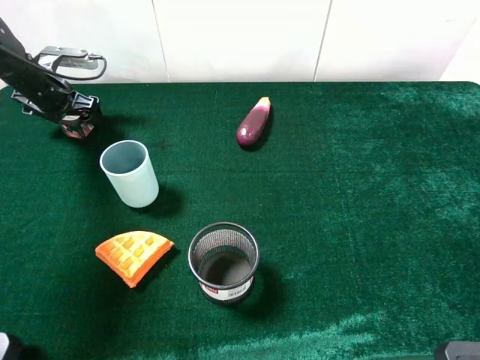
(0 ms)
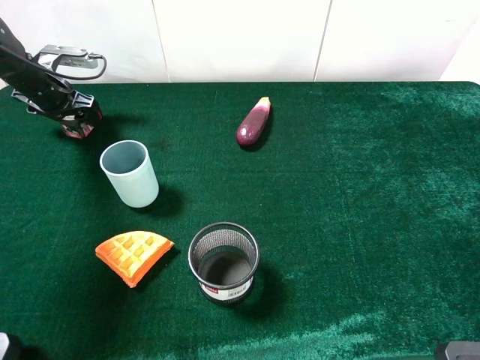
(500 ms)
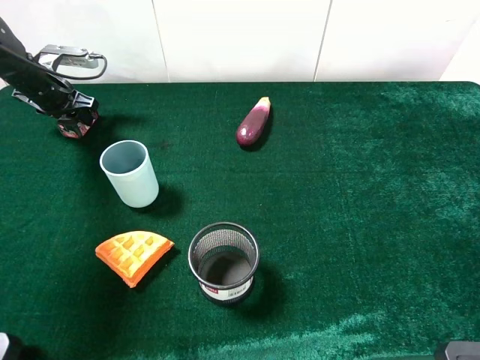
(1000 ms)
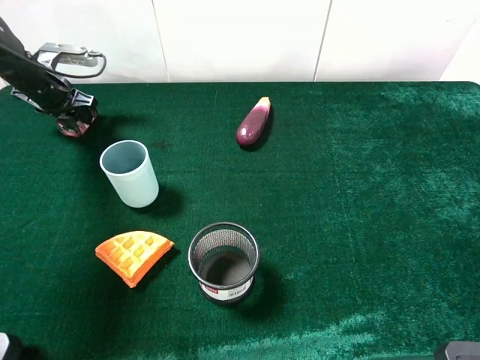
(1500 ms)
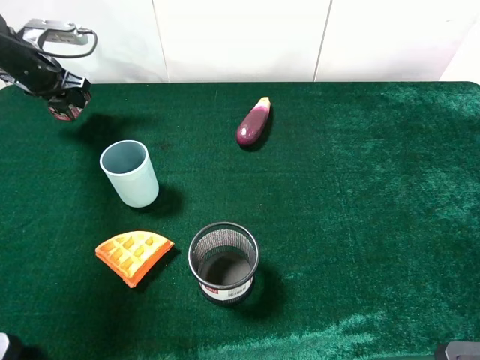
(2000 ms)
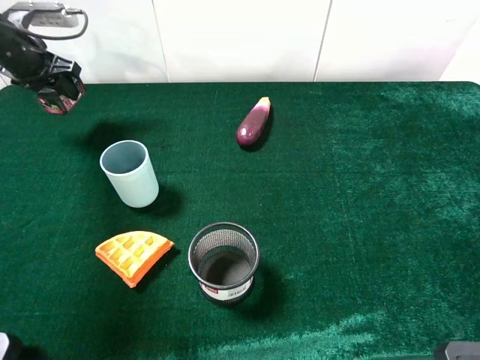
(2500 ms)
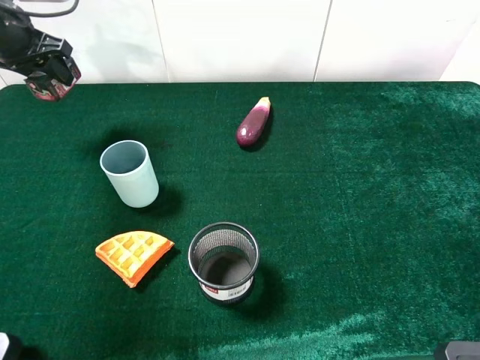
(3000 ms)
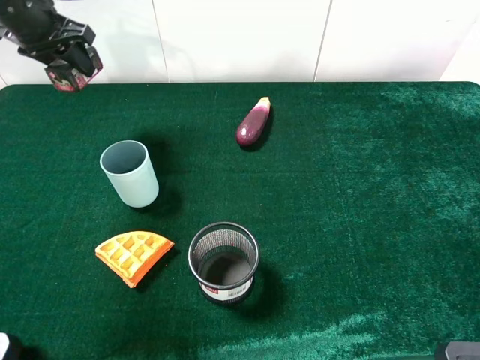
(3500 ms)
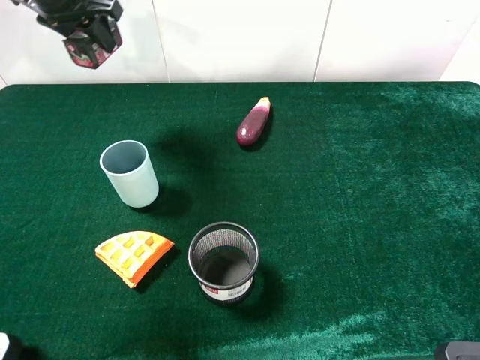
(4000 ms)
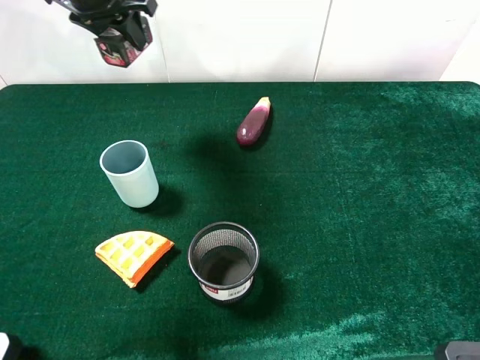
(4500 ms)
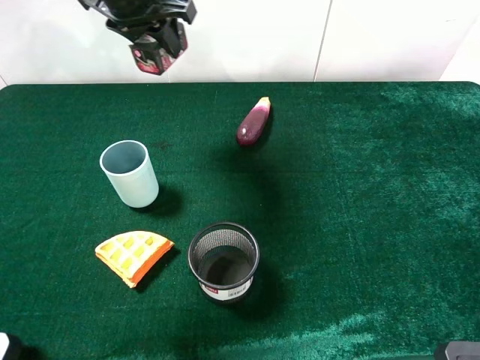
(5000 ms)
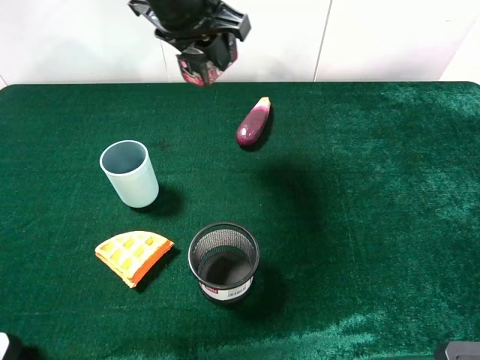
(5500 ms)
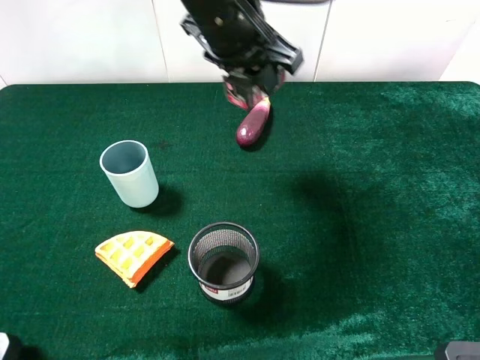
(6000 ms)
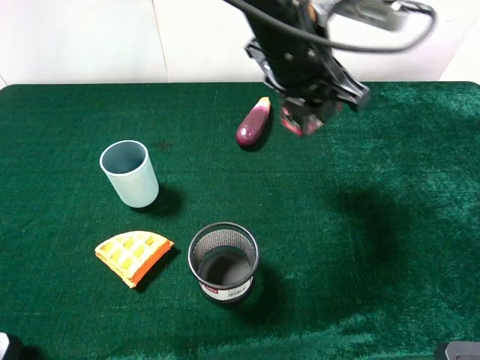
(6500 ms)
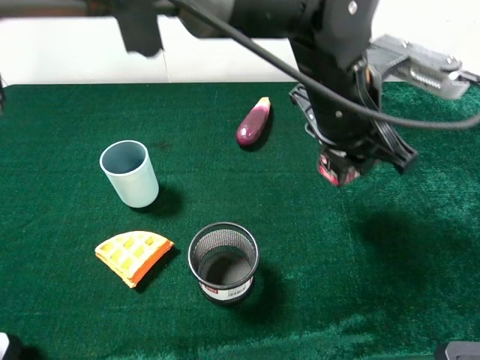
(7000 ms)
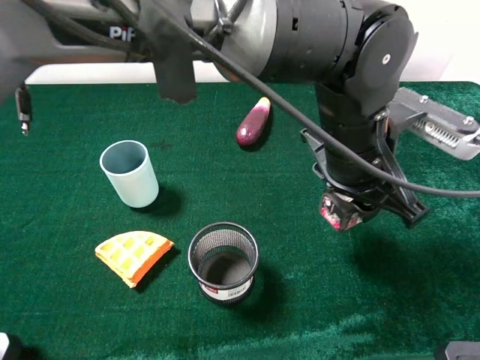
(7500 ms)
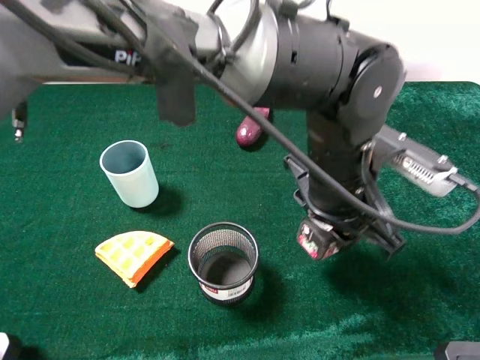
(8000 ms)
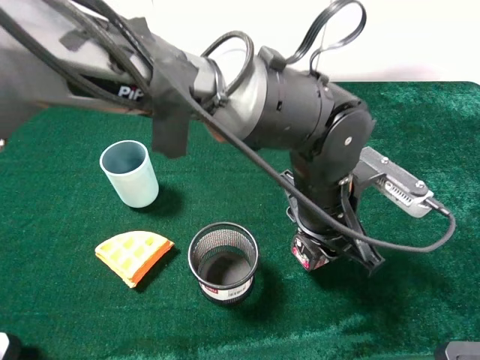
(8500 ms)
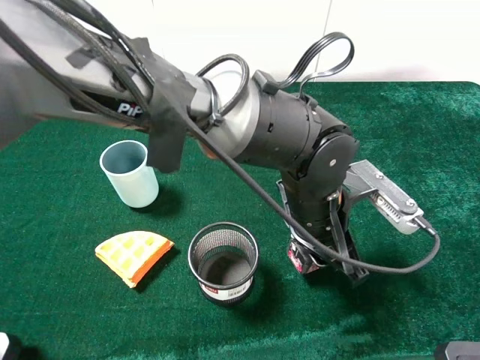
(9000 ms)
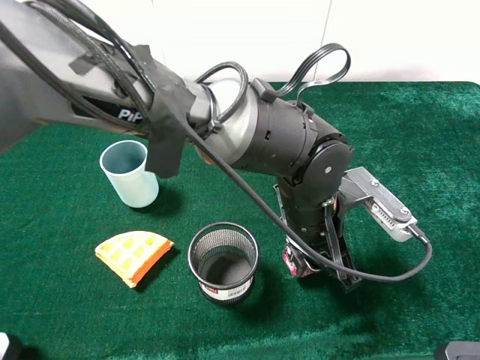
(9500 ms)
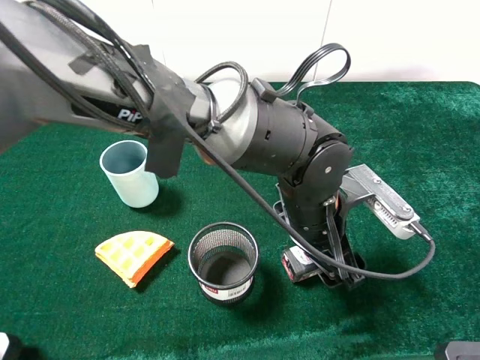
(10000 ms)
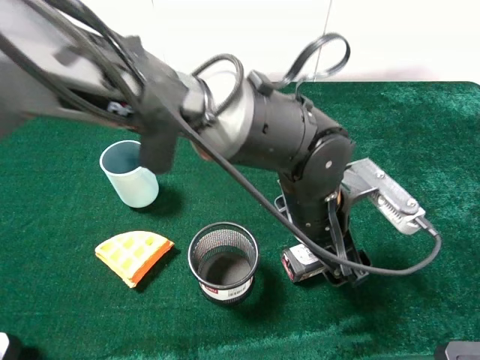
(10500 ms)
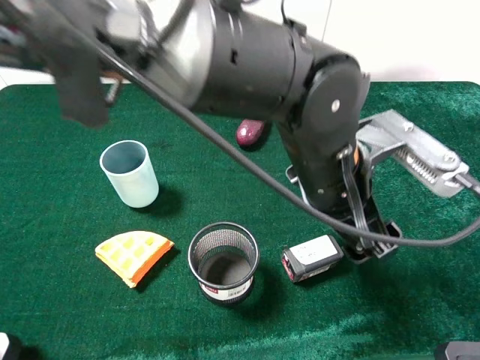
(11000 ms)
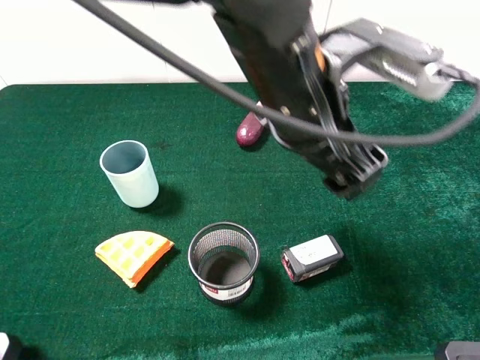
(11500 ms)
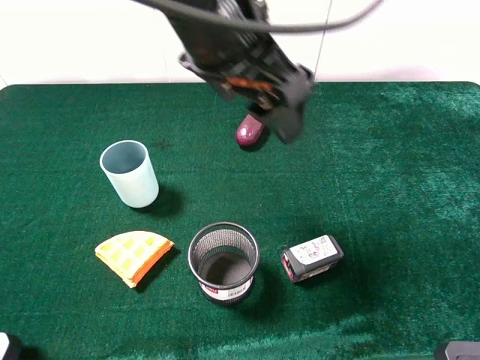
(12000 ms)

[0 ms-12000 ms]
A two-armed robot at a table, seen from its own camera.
Task of the whole recording: the gripper move the object.
Step, 1500 ms to 10000 ms: Place the square chewing gun on the table with the left gripper.
0 ms to 2000 ms: The left gripper closes up.
2000 ms to 4000 ms: The left gripper travels upward and to the right by about 20 cm.
4000 ms to 6000 ms: The left gripper goes approximately 25 cm to the right and backward.
6000 ms to 8000 ms: The left gripper heads to the right, backward and downward, covering about 20 cm.
8000 ms to 10000 ms: The left gripper goes roughly 5 cm downward, and opens up.
10000 ms to 12000 ms: The left gripper is displaced upward and to the left by some 25 cm.

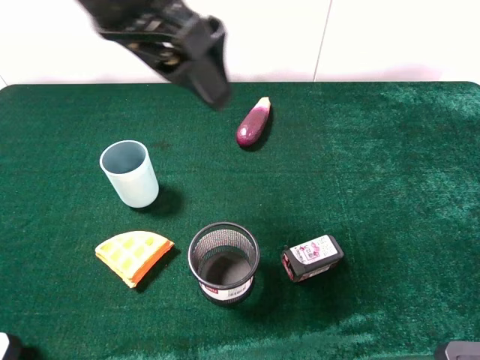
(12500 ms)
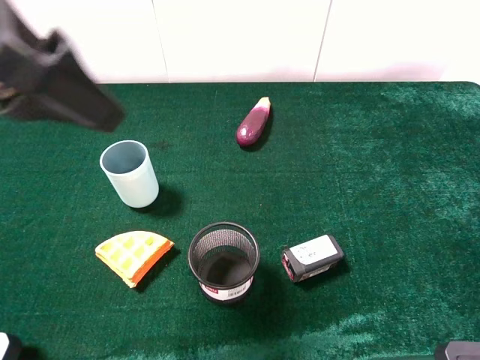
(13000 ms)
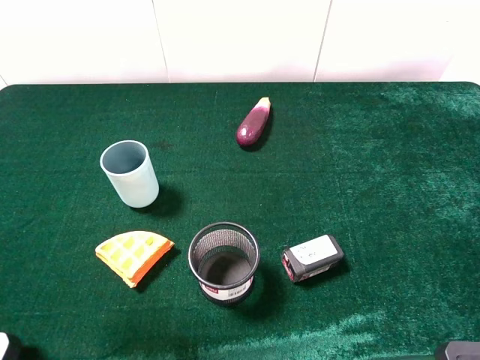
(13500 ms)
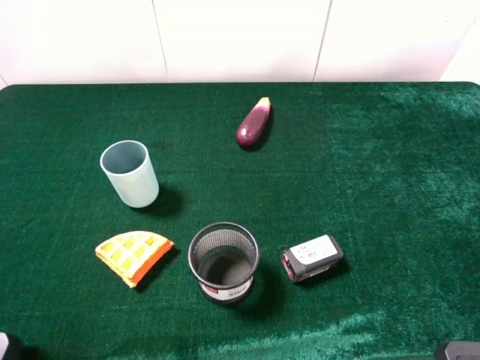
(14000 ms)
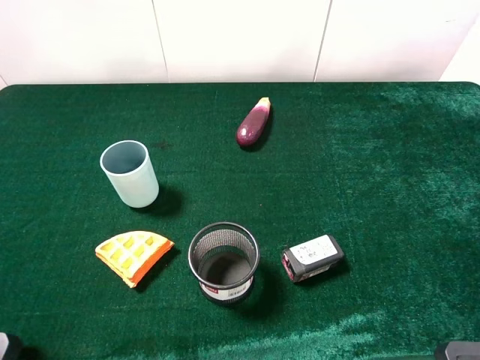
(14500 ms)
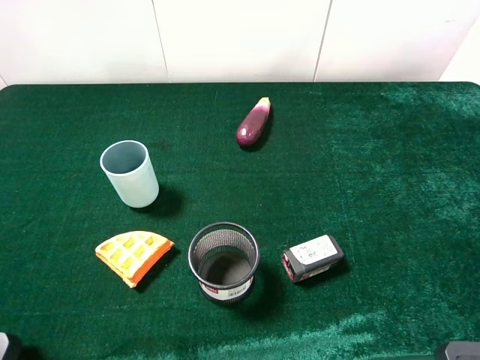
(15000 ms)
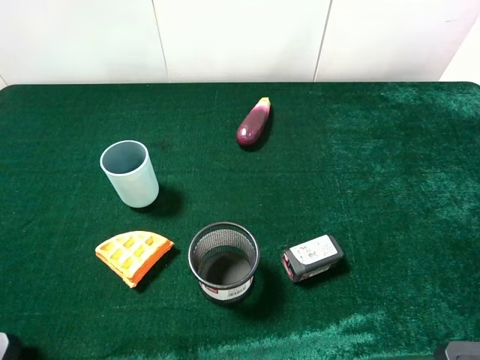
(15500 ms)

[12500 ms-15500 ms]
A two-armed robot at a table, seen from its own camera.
Task of the whole recording: the gripper move the object.
12500 ms to 14000 ms: The left gripper moves to the left and backward, some 30 cm.
